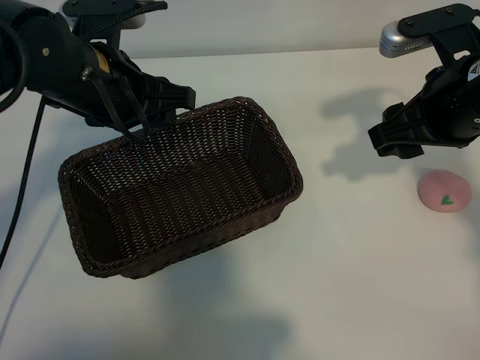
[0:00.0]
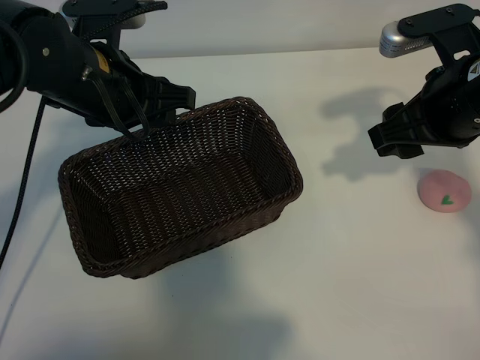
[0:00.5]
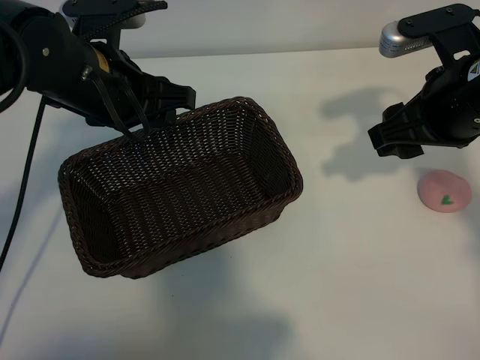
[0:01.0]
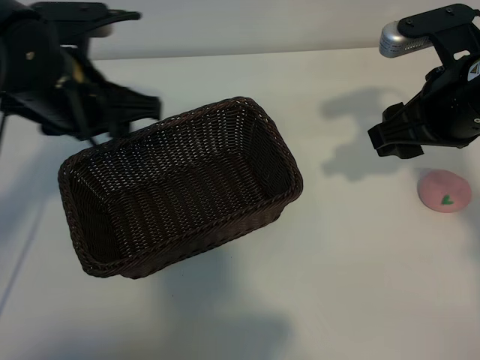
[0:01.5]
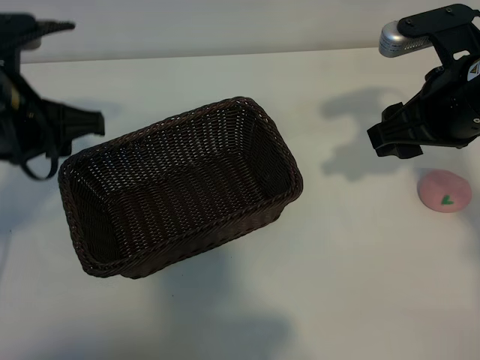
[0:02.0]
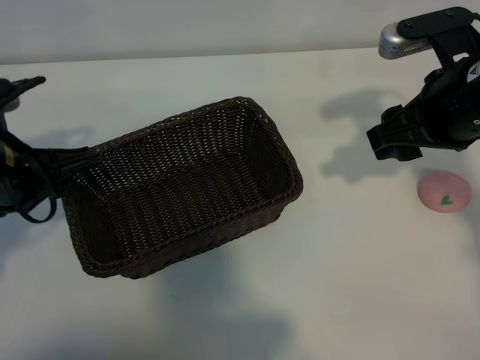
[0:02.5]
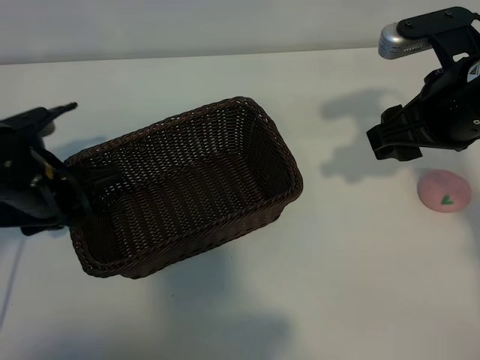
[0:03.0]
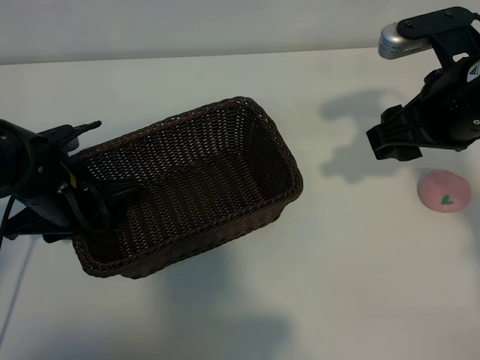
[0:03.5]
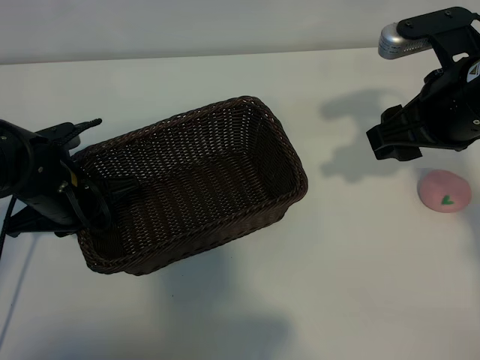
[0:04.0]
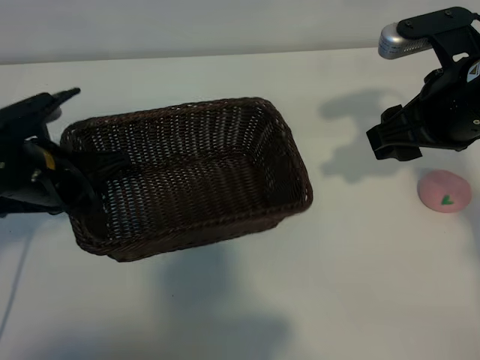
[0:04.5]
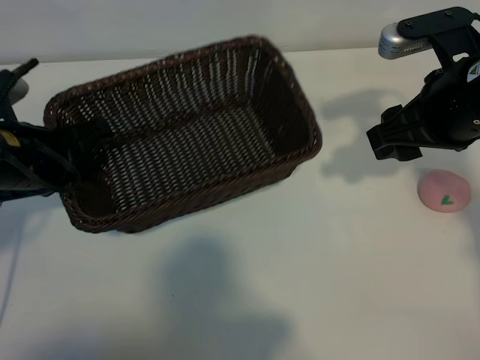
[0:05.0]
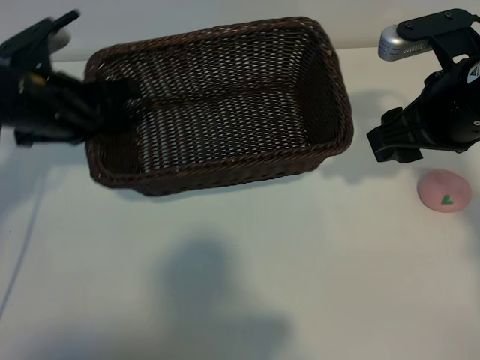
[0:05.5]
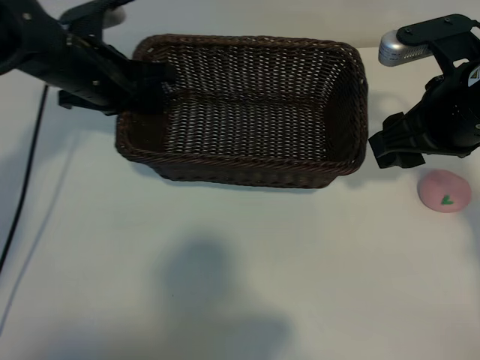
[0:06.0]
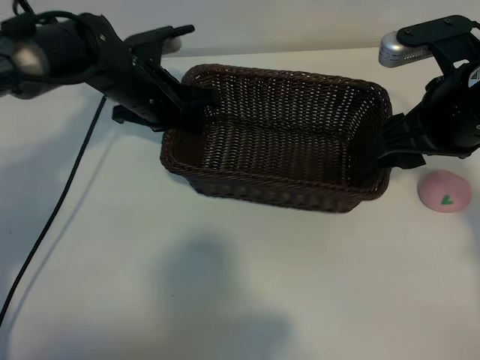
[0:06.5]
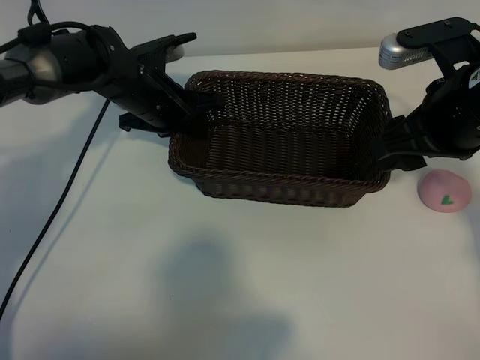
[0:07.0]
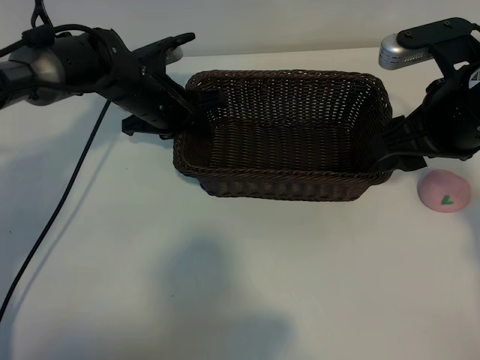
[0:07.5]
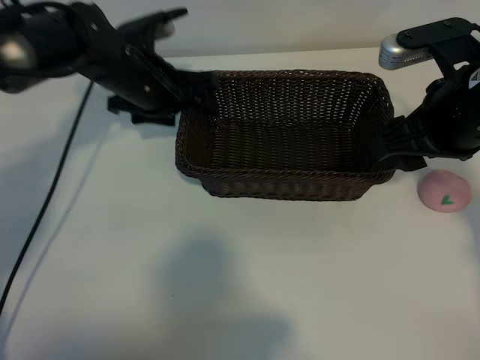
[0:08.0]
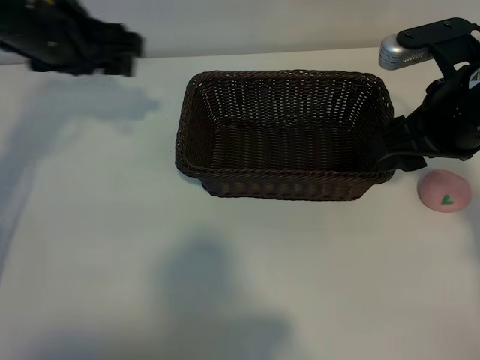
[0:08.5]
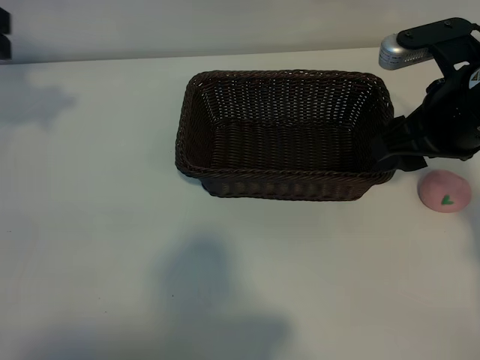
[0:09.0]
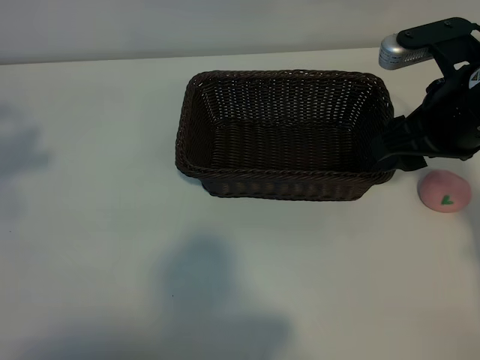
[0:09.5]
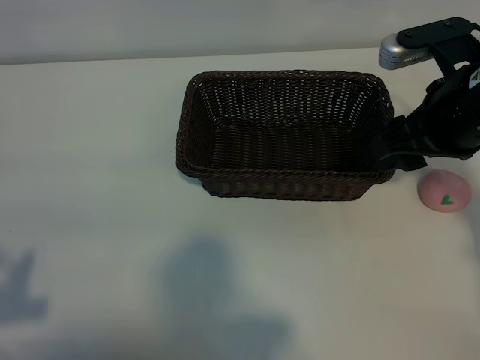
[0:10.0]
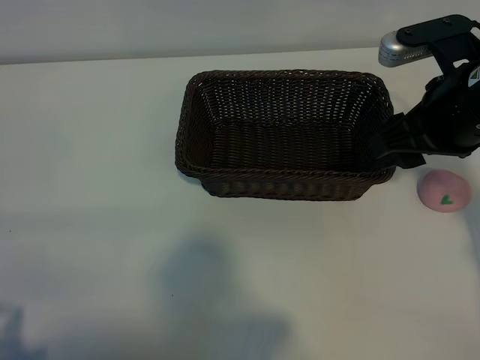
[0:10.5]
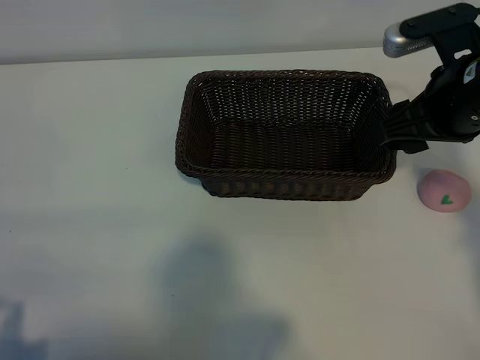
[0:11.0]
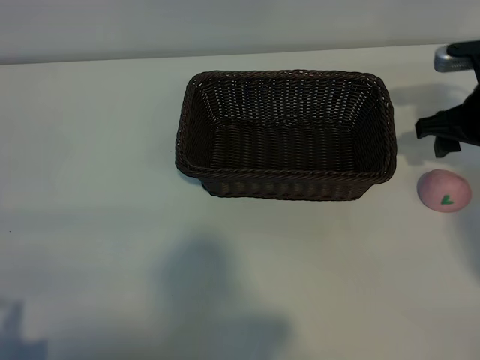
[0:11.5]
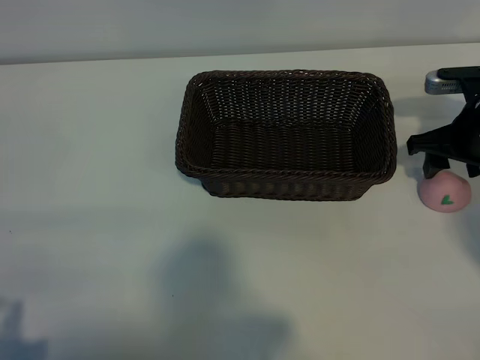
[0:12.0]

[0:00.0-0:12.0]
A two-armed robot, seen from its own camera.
Task of the whole recording: pick up the peach and put it into the basket.
Step, 0:01.5 to 0:04.0: Grasp the basket with left gripper.
Step, 0:04.5 to 0:07.5: Place the basket in the center of view with left gripper.

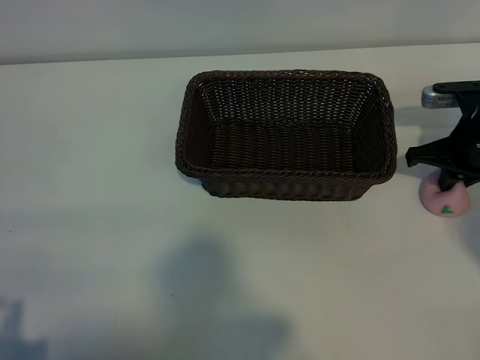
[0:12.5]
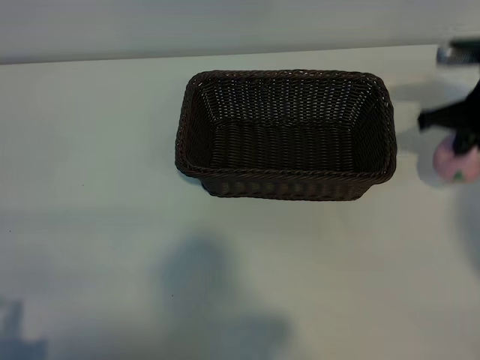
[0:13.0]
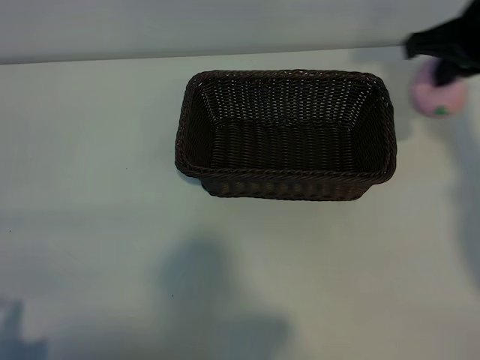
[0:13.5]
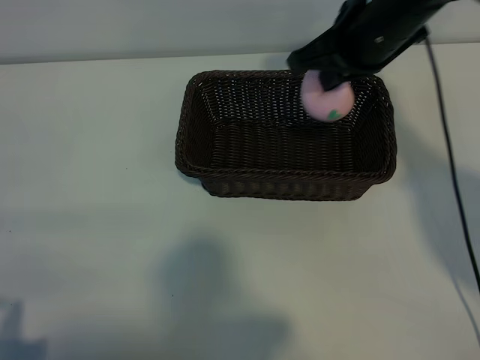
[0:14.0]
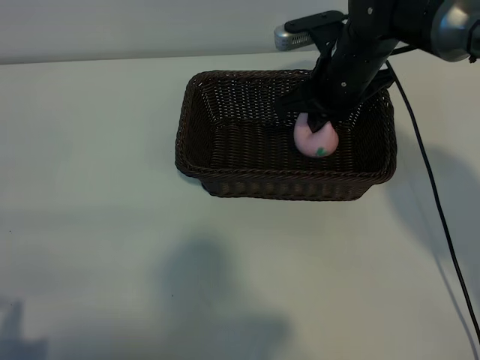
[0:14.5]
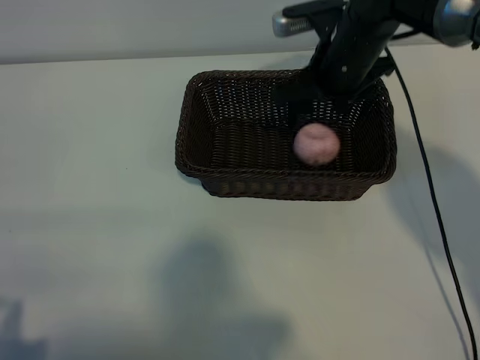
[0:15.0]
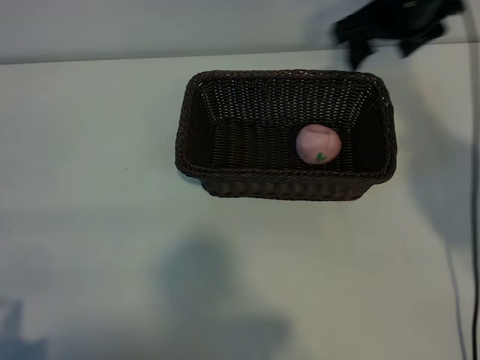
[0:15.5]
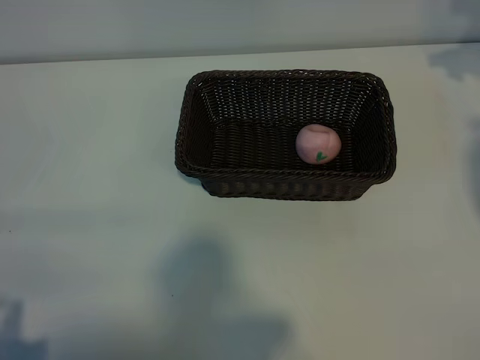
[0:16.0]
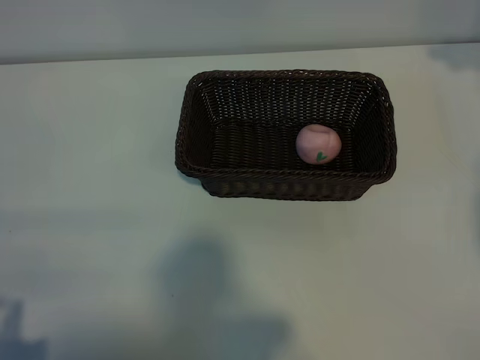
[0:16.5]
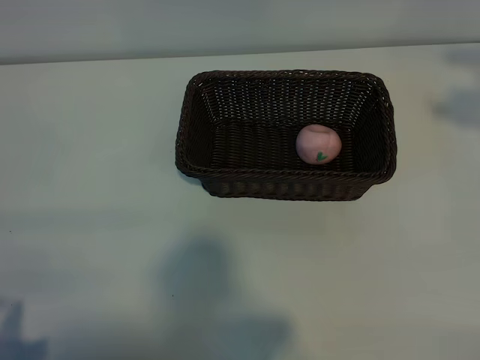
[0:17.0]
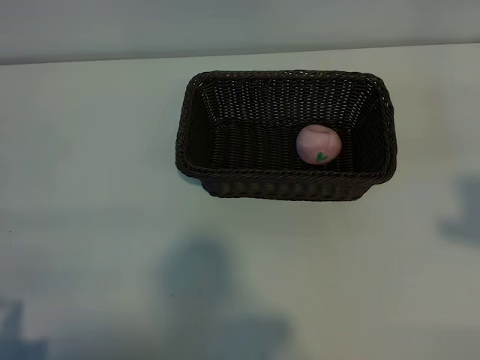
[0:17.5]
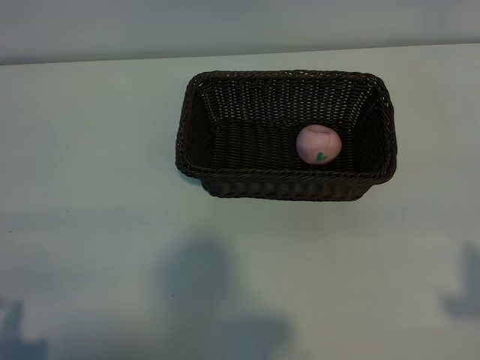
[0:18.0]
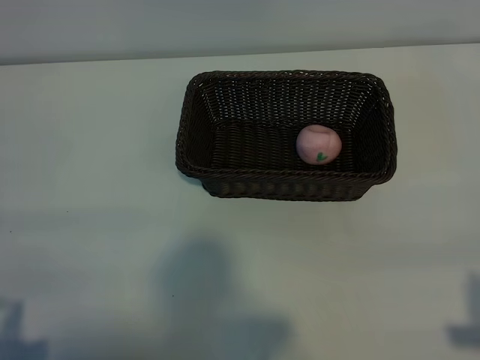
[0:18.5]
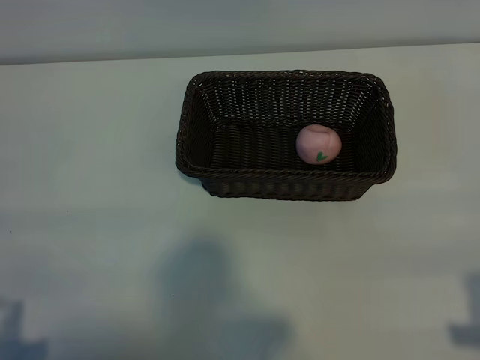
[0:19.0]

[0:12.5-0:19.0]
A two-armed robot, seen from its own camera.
Task of the whole recording: pick up the peach and put it into the basket.
Step, 0:13.0 to 0:14.5: Place the peach in the basket with right gripper.
